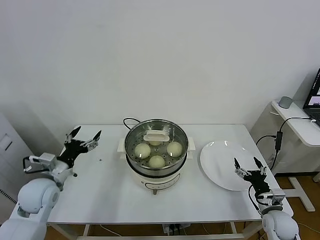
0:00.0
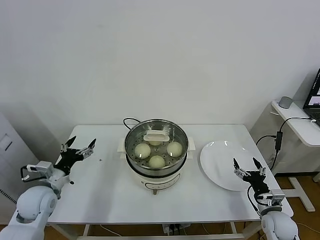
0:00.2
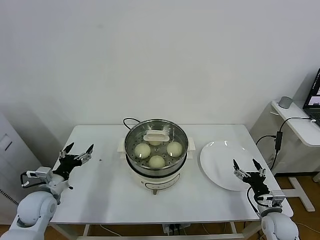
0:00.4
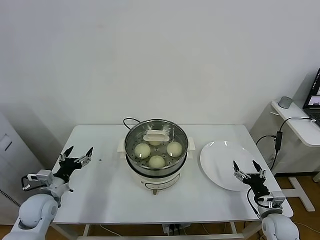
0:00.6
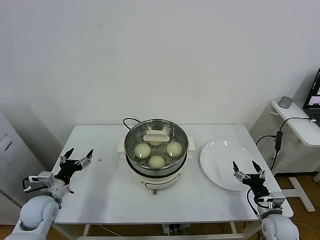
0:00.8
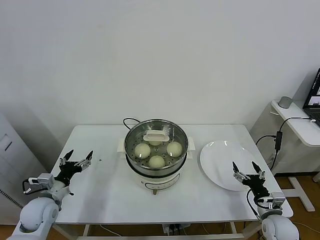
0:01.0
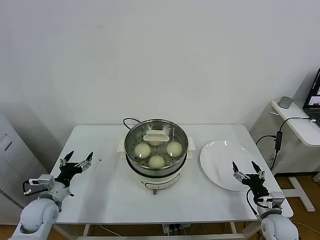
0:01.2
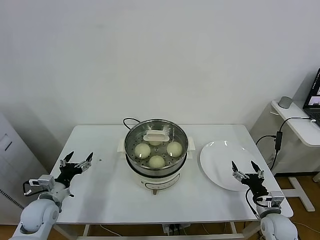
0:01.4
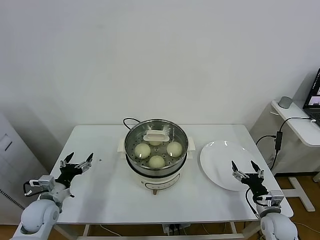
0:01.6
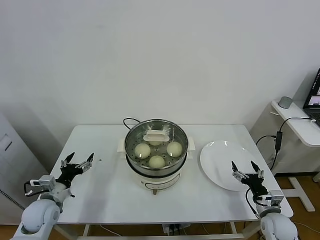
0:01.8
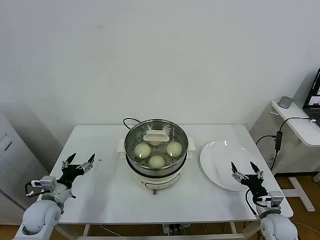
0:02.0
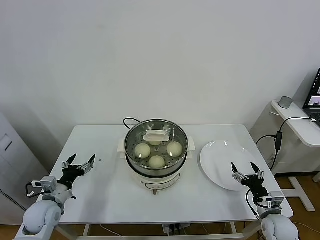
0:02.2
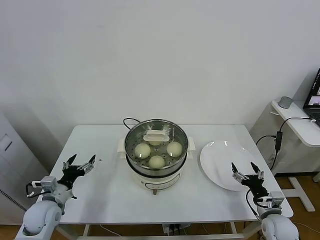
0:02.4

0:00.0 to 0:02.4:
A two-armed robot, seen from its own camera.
Task of the whole recording: take steamed baozi put them in steamer.
0:00.0 to 0:01.2: The left gripper travels downward by some 10 cm.
0:01.2 to 0:02.4: Both grippers stay about where they are.

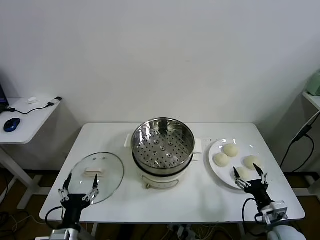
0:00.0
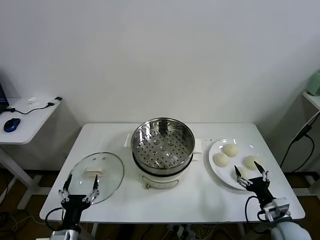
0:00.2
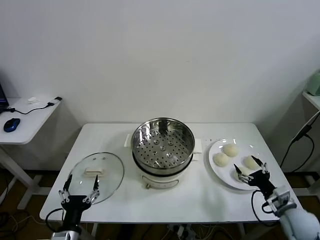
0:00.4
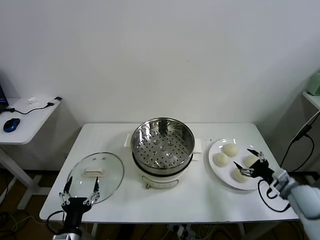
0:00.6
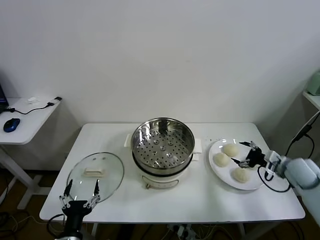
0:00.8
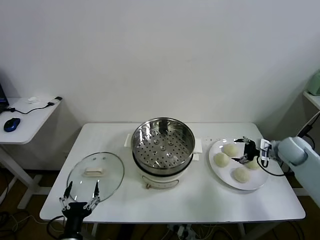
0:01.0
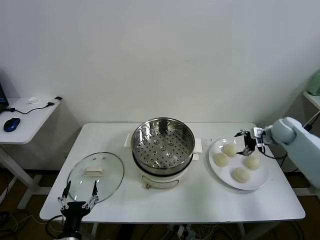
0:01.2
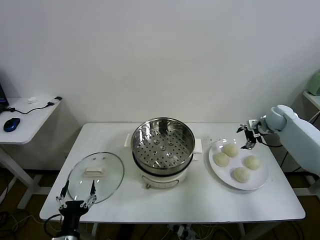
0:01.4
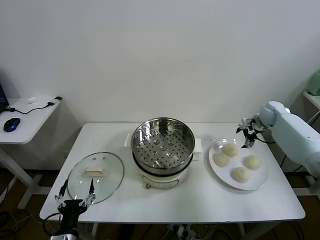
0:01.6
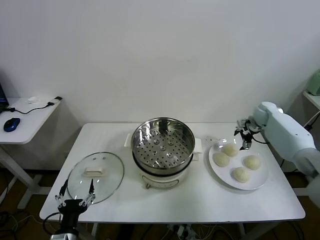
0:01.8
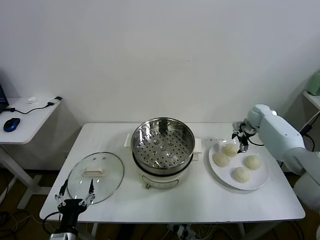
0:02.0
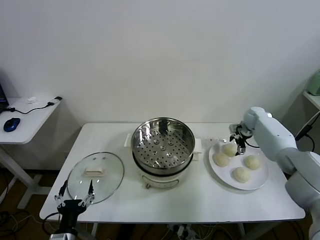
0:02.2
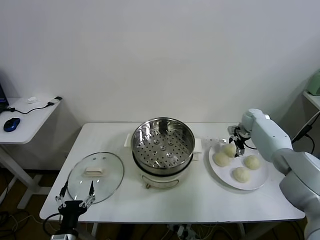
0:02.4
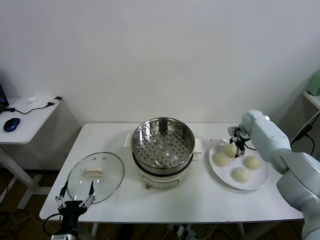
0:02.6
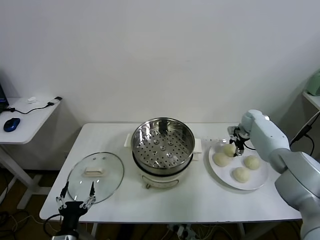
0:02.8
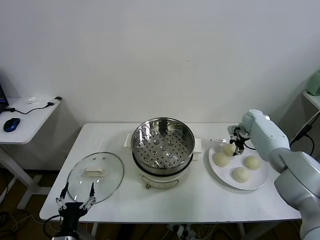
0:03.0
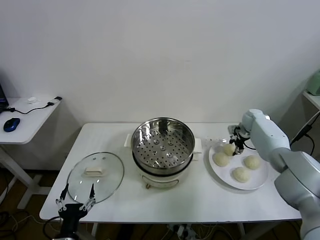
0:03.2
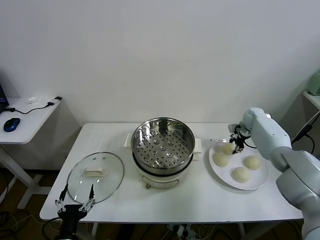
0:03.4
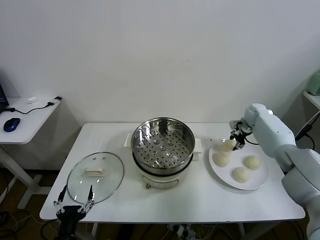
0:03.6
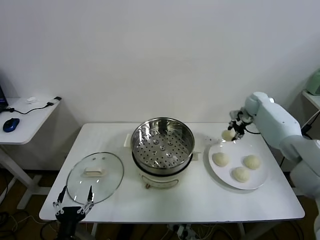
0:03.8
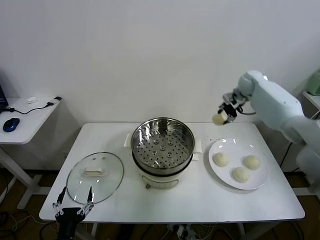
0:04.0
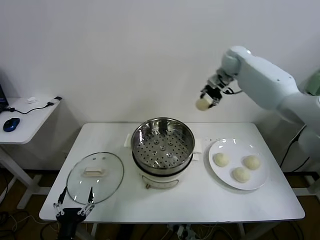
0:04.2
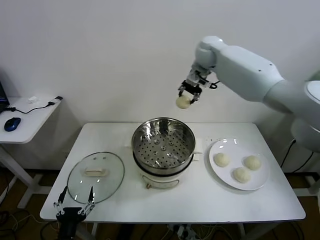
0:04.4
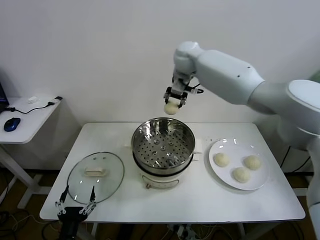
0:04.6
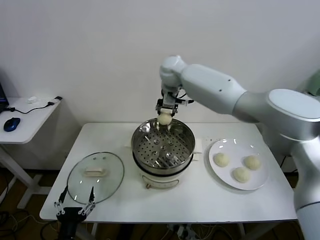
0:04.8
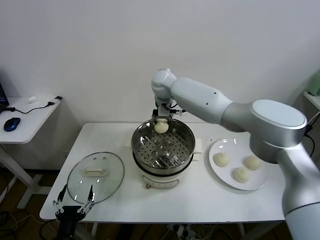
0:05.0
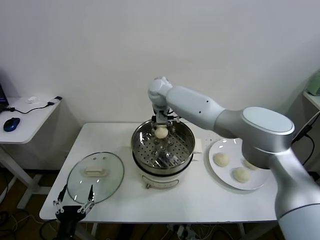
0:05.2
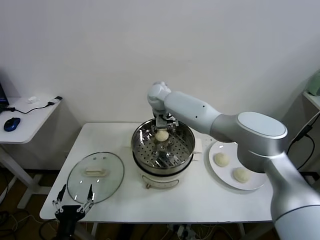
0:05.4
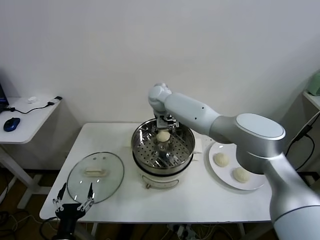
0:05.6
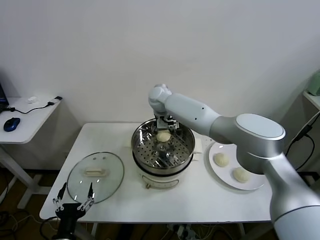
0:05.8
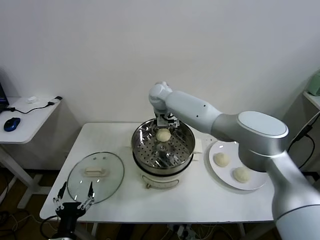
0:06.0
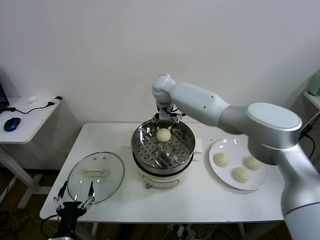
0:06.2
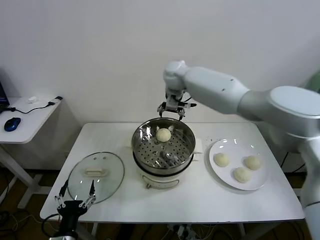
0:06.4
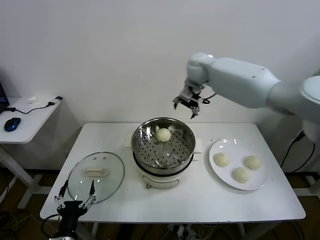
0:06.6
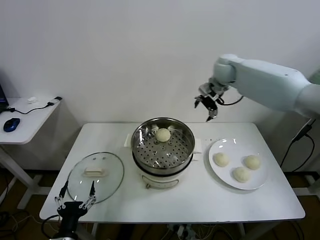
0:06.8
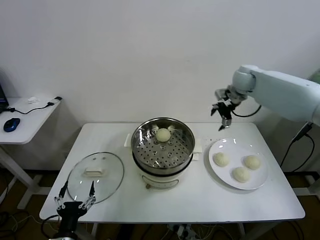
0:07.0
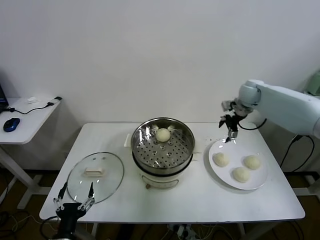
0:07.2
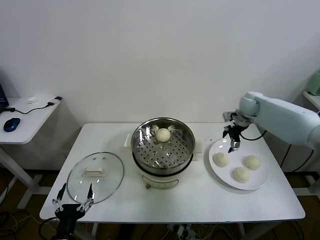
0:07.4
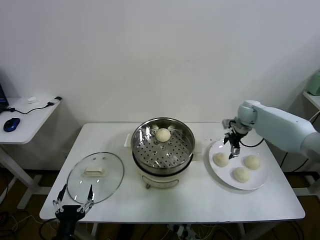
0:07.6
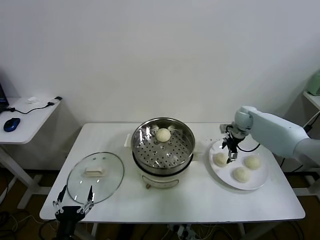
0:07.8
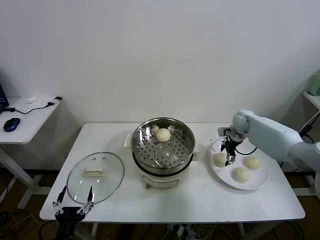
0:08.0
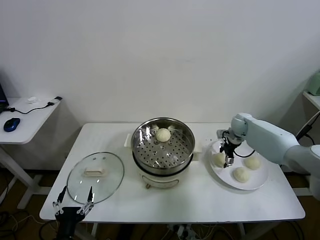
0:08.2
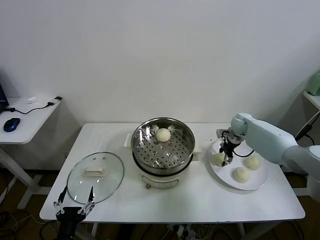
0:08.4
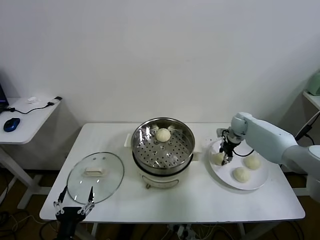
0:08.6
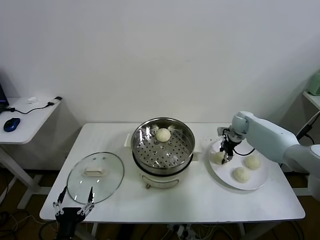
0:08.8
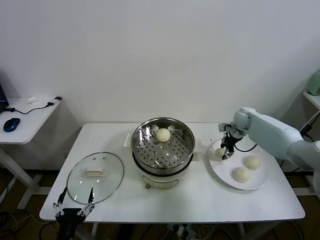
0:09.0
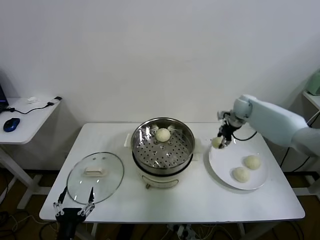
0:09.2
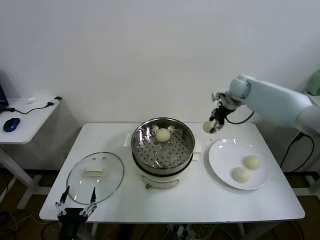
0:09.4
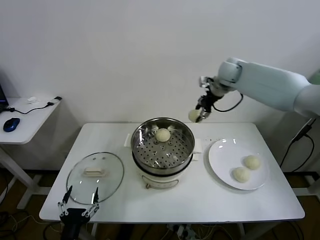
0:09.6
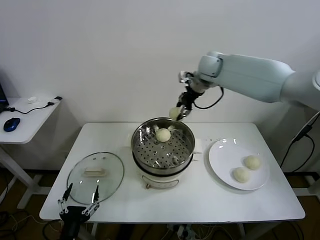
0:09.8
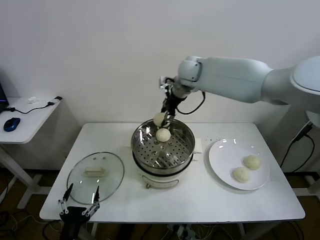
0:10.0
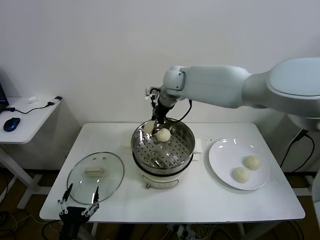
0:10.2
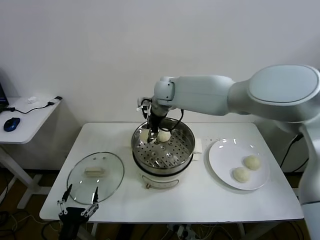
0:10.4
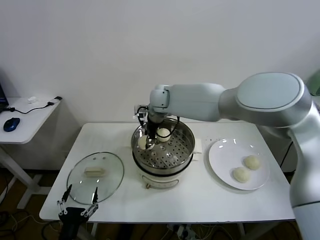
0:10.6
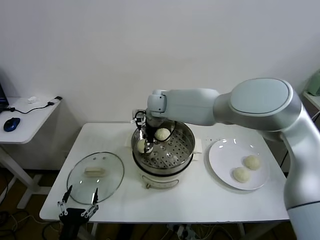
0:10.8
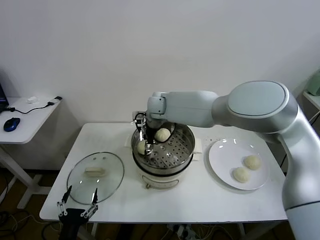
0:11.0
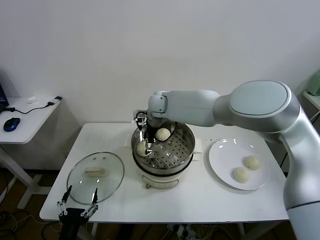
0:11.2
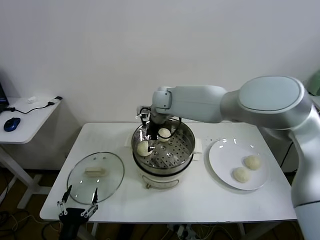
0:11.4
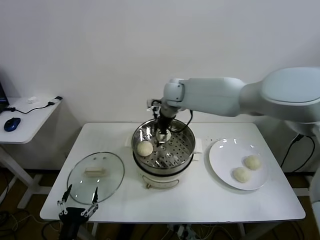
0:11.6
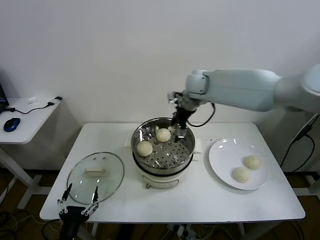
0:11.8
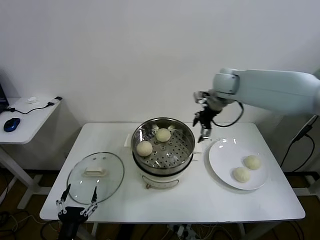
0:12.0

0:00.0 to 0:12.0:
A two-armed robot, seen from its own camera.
Task of the whole recording: take steamed baozi put them in steamer.
Step, 0:00.0 to 0:02.8: Grasp the baozi in the plate with right gripper.
Step, 0:03.2 to 0:06.0: Place the baozi on the steamer with right gripper.
Step, 0:06.2 to 0:08.4: Grasp the baozi in the plate with right gripper.
Step, 0:08.6 to 0:11.4: Place the baozi on the steamer with right gripper.
0:01.6 to 0:03.0: The right gripper is displaced downward by approximately 5 cm, and closes its fingers.
0:03.0 to 0:04.4: The right gripper goes about 40 cm upward and to the left.
0:04.4 to 0:06.0: The right gripper heads downward and to the left, covering approximately 20 cm, and opens its fingers.
0:06.0 to 0:07.6: The right gripper goes approximately 35 cm to the right.
0:07.6 to 0:09.0: The right gripper closes its fingers.
0:09.0 to 0:10.4: The right gripper travels to the left and upward by roughly 35 cm.
0:10.4 to 0:12.0: The right gripper moves to the right, about 25 cm, and opens.

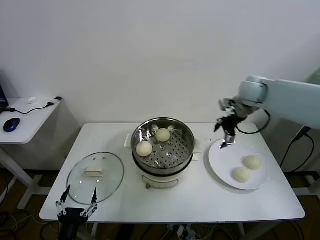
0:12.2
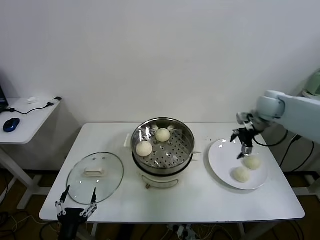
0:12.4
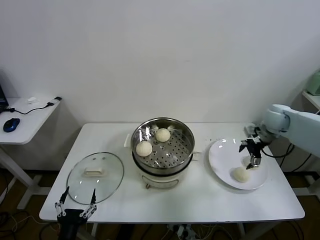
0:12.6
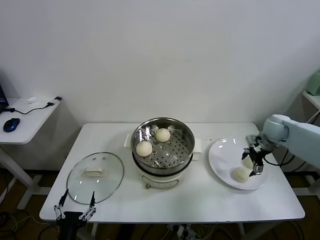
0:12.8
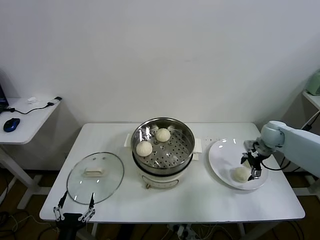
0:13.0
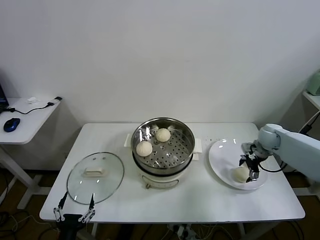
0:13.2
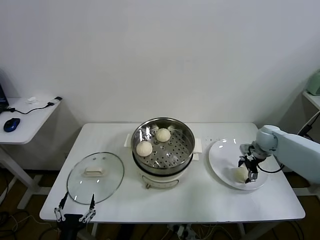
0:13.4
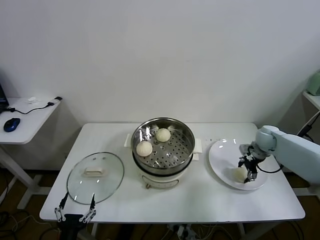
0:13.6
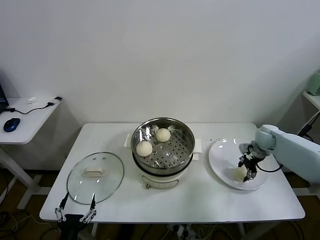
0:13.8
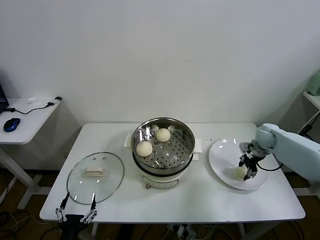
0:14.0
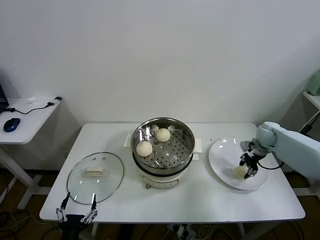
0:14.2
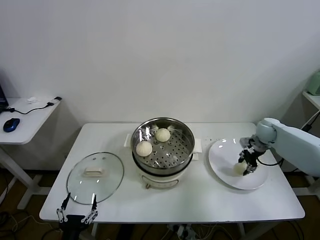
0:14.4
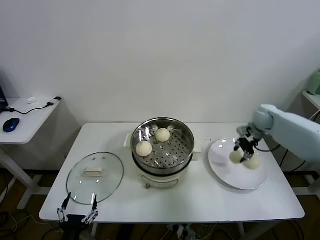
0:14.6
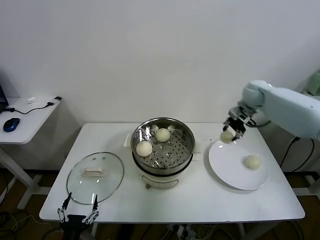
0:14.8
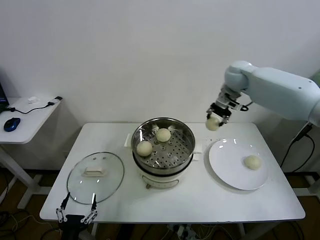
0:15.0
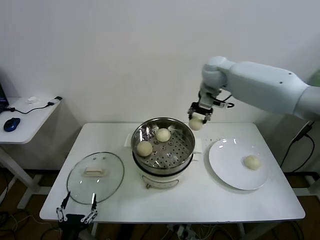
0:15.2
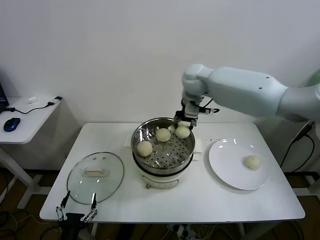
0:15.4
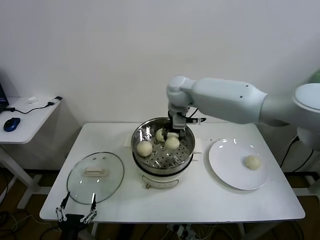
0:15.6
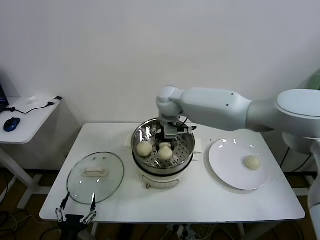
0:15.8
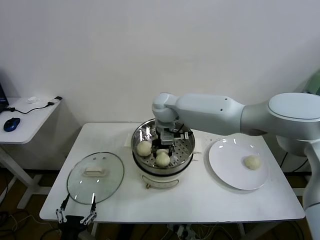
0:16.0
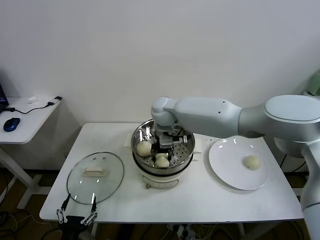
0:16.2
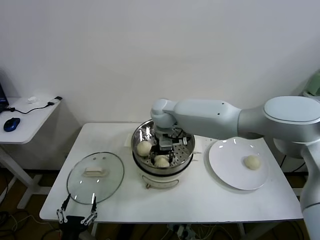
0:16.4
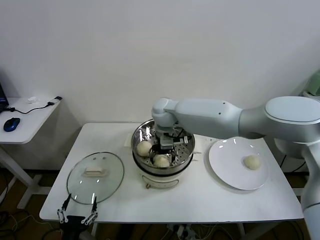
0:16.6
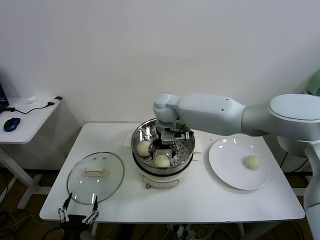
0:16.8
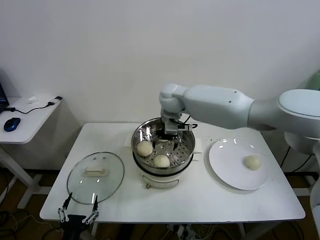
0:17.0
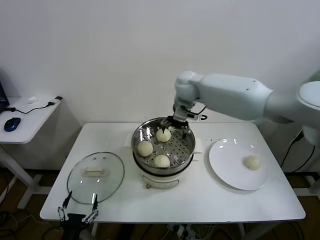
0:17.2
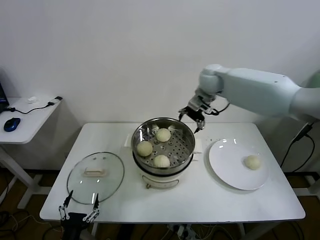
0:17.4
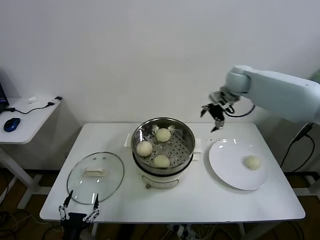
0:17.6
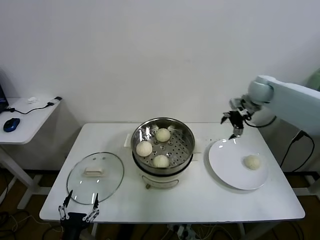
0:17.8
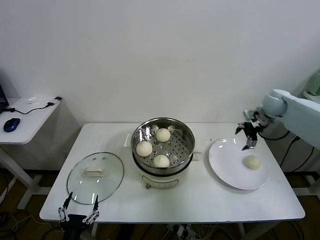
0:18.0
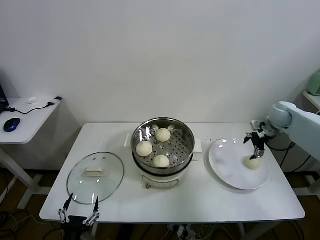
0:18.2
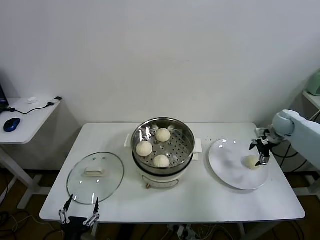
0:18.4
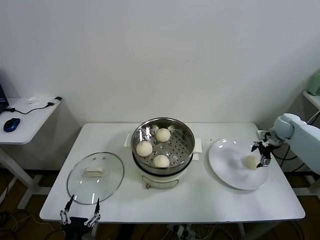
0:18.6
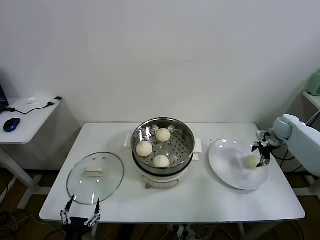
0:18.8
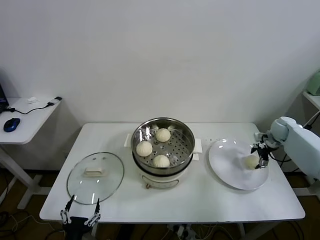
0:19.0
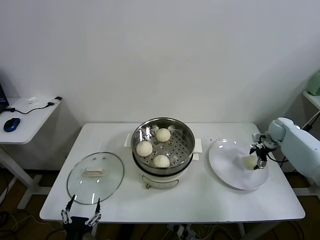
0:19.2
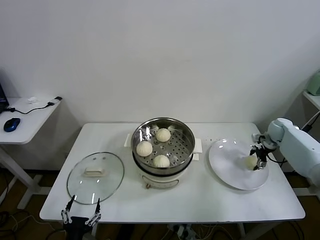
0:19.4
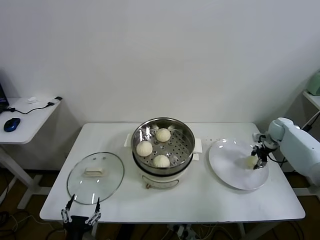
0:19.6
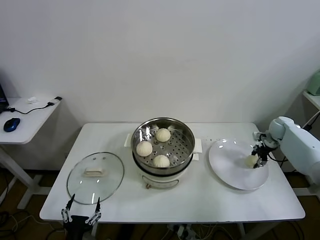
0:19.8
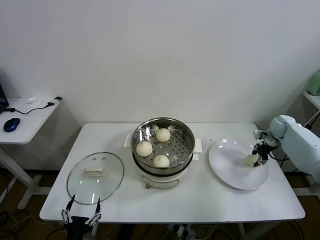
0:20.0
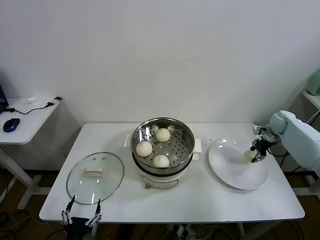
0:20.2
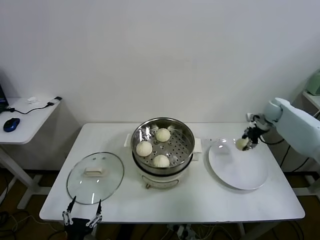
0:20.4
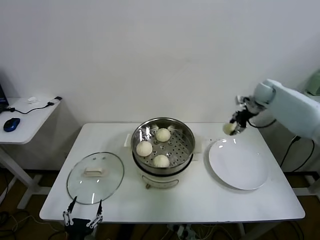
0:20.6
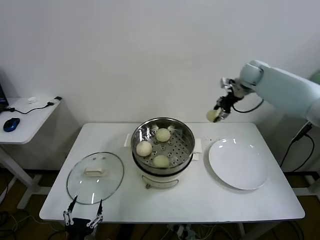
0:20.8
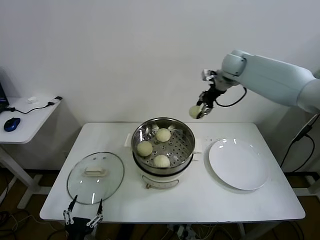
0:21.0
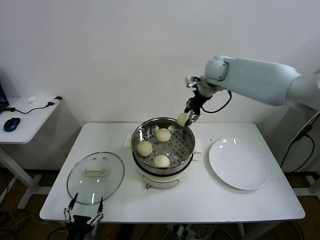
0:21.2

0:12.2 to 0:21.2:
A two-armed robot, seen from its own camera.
Task of the whole recording: take steamed baozi put them in steamer.
Step, 0:12.2 to 0:13.6: Grasp the baozi in the plate with right gripper.
Step, 0:14.0 to 0:16.8: Place the baozi on the steamer with right gripper.
Step, 0:17.0 to 0:19.6: Grasp the baozi in the plate with right gripper.
0:12.2 to 0:13.8: The right gripper moves downward and to the right, about 20 cm, and closes up.
0:13.8 to 0:15.2: The right gripper goes some 35 cm to the left and upward.
0:15.2 to 0:16.6: The right gripper goes roughly 20 cm to the left and downward, and opens.
0:16.6 to 0:18.2: The right gripper travels to the right by about 40 cm.
0:18.2 to 0:19.8: The right gripper heads downward, covering about 10 cm, and closes.
0:19.8 to 0:21.2: The right gripper goes about 40 cm to the left and upward.
